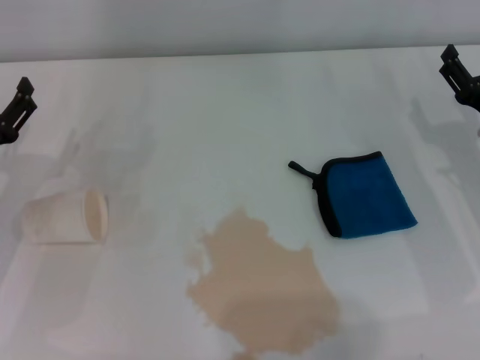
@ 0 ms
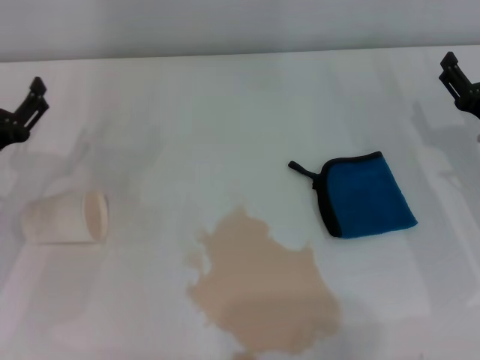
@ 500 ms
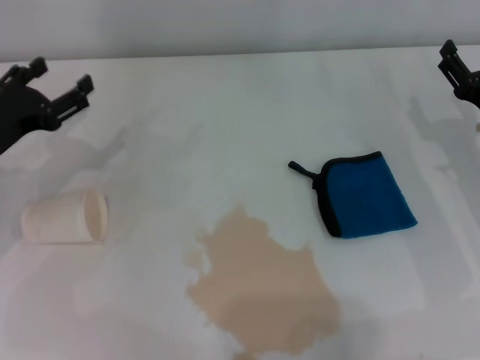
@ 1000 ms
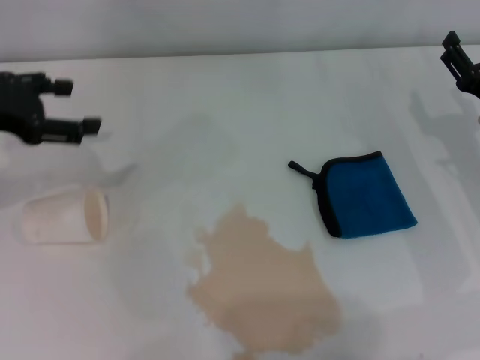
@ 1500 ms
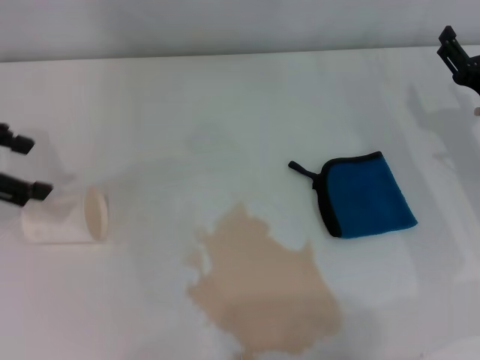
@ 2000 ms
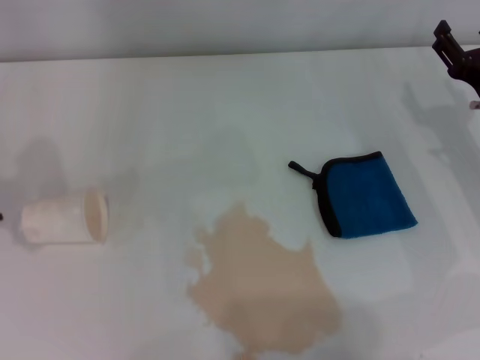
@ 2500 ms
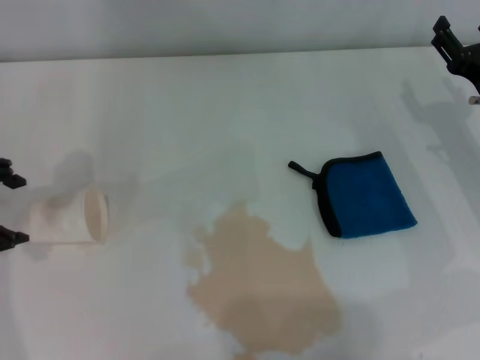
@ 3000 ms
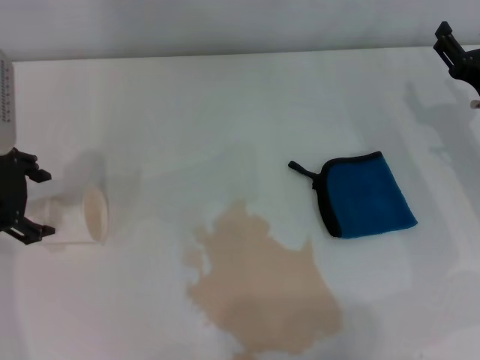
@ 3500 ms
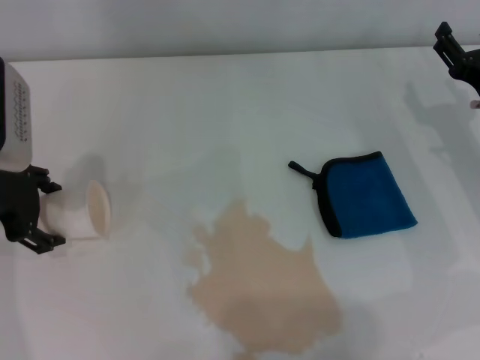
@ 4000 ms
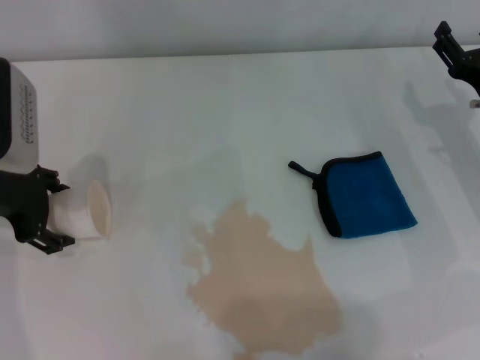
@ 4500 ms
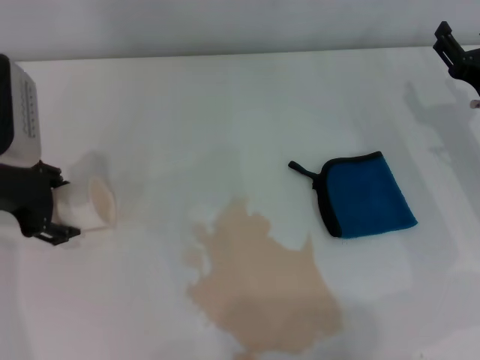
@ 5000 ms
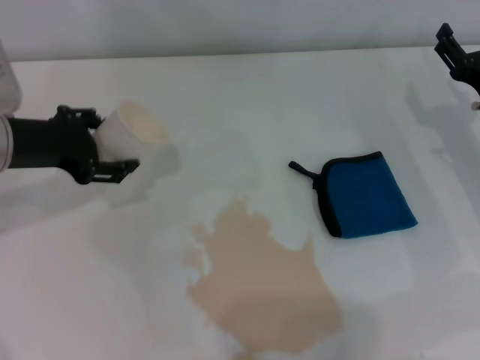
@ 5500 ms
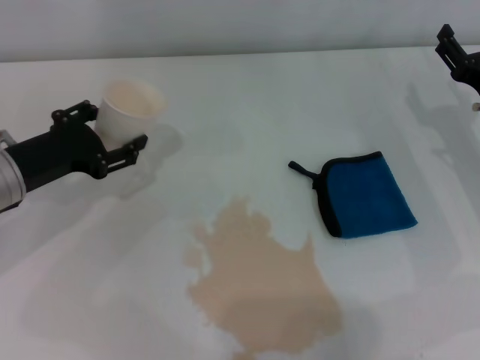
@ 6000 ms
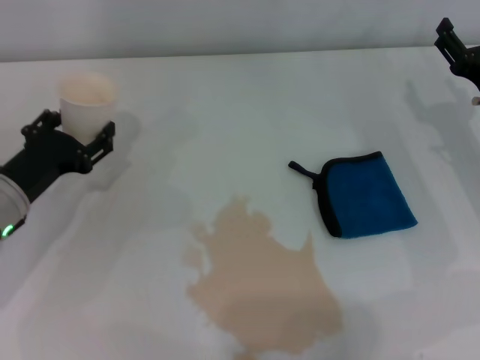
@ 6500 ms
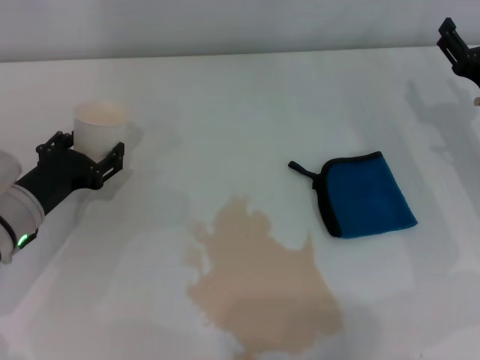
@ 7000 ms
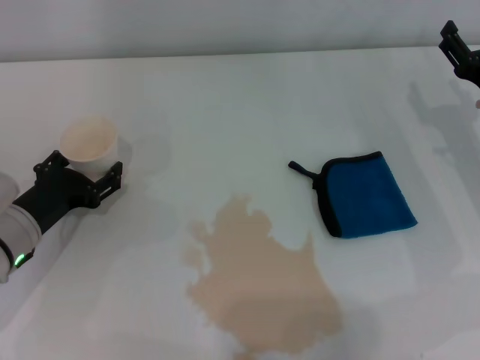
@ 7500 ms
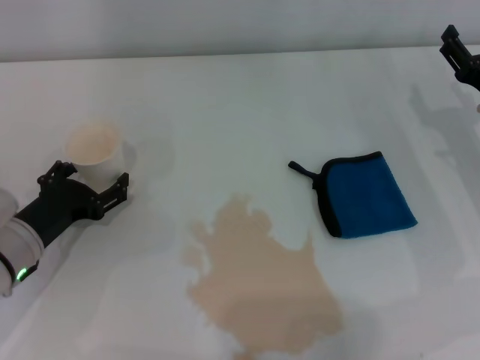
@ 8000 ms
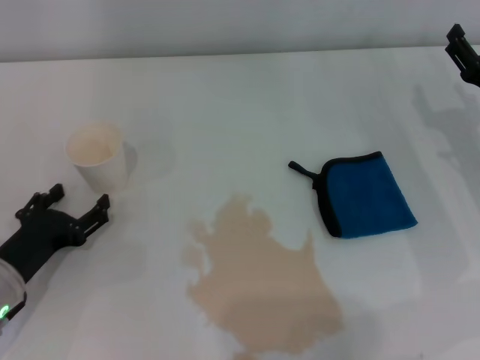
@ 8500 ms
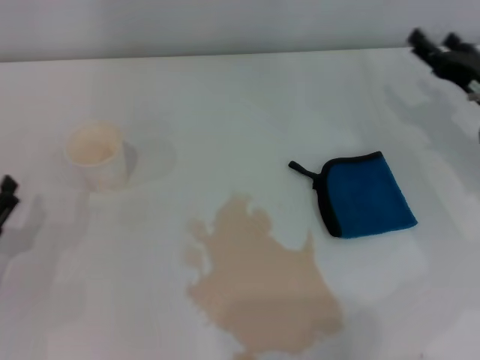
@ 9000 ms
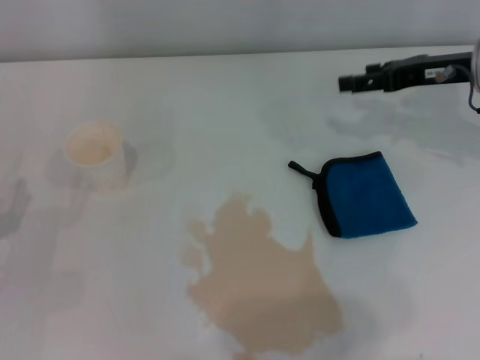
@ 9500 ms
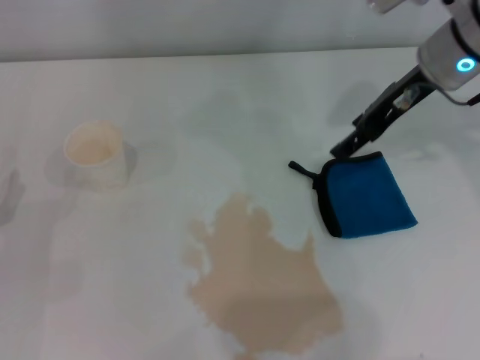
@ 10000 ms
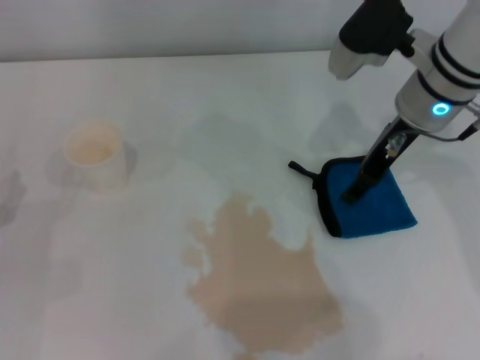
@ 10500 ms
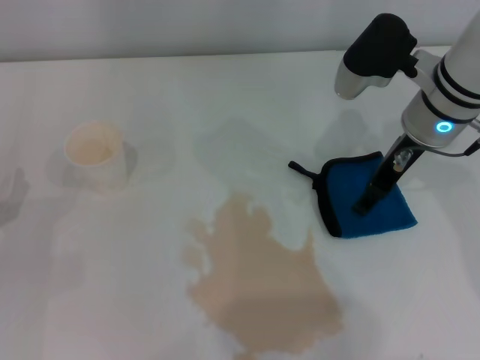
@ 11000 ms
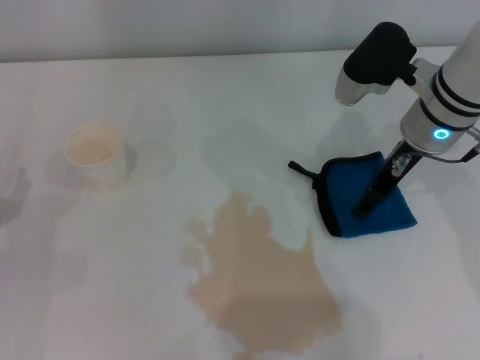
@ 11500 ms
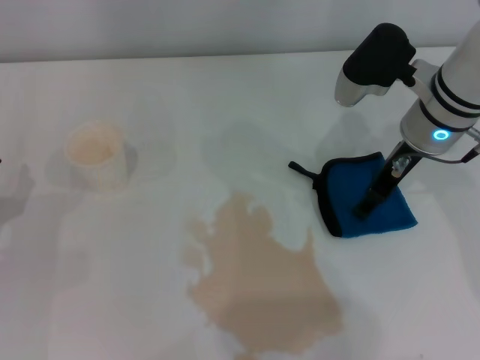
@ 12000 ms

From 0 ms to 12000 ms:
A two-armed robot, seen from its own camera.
Step, from 0 ms to 4500 ms: Grasp the paper cup with the left gripper.
Step, from 5000 ms to 7500 ms: Stand the paper cup upright with the left gripper.
From 0 ms to 2000 ms: The left gripper is displaced upward by about 15 cm.
From 2000 ms to 4000 ms: The left gripper goes some 10 cm downward and to the right.
From 4000 ms to 6000 ms: The left gripper is displaced downward by roughly 5 cm, and closes up.
From 6000 ms to 8000 ms: The left gripper is displaced downward by roughly 10 cm, and opens.
From 8000 ms to 10000 ms: The left gripper shifts about 5 cm to the left; the right gripper heads upward, forward and to the left, covering about 20 cm.
From 10000 ms to 12000 ms: The right gripper shifts about 5 cm downward.

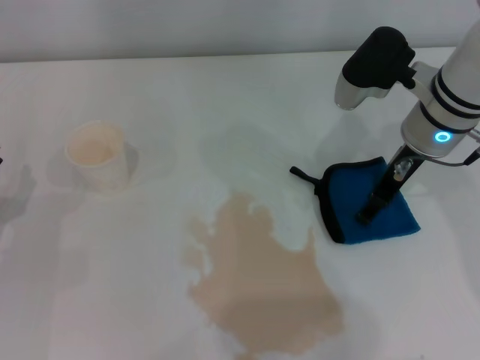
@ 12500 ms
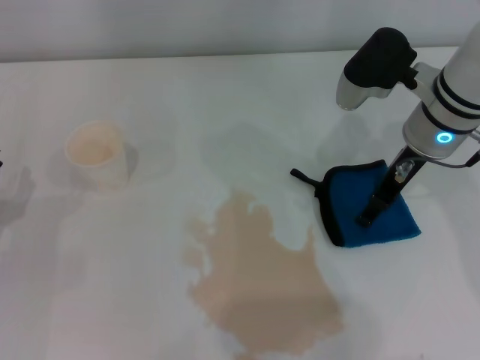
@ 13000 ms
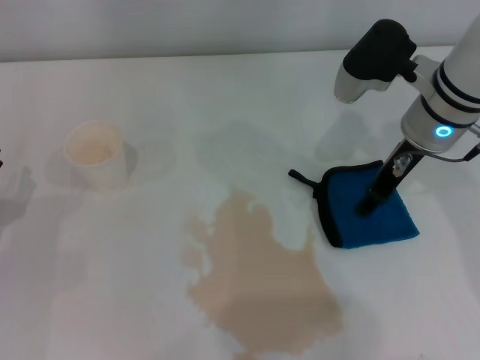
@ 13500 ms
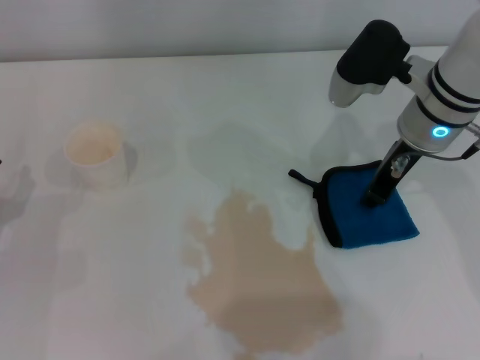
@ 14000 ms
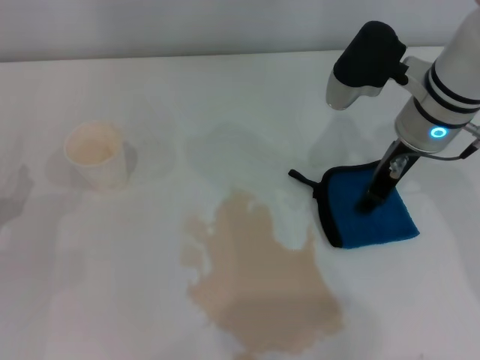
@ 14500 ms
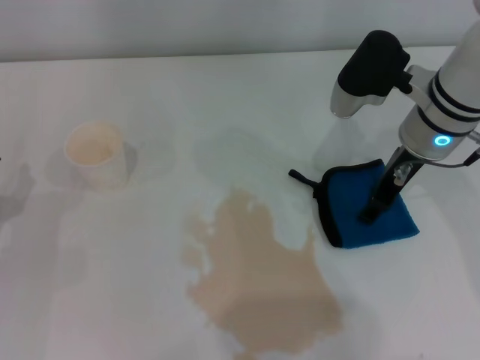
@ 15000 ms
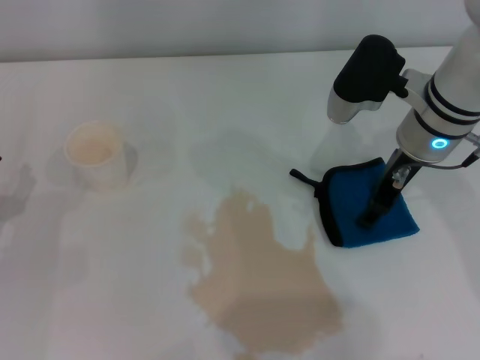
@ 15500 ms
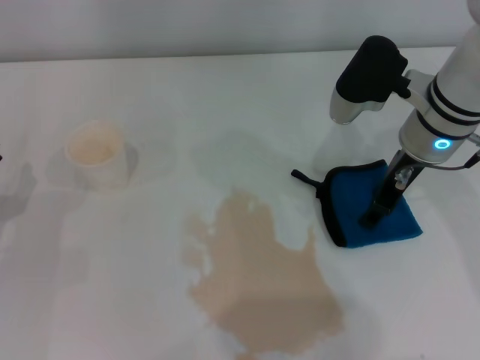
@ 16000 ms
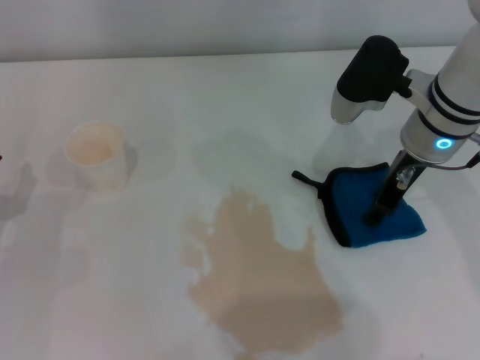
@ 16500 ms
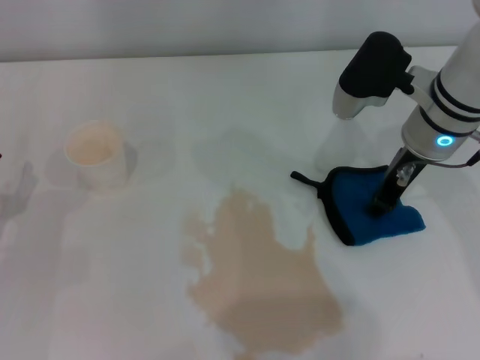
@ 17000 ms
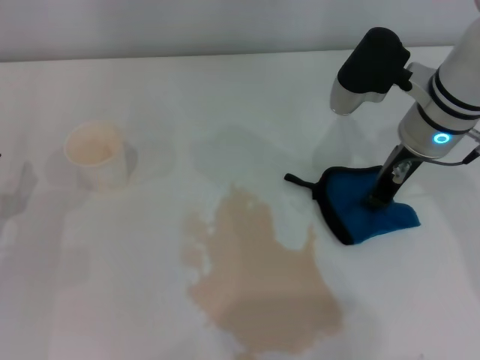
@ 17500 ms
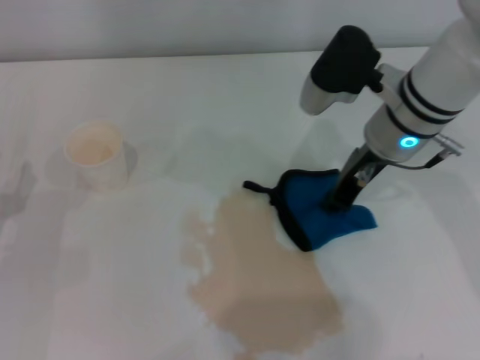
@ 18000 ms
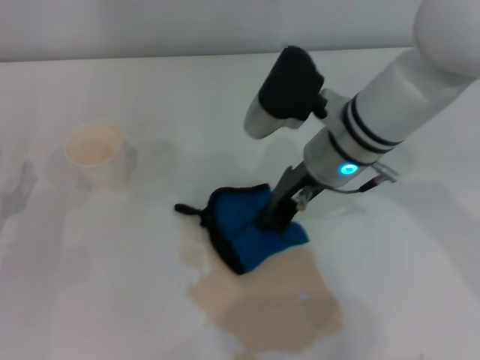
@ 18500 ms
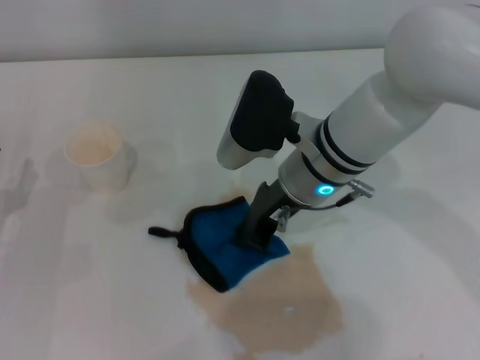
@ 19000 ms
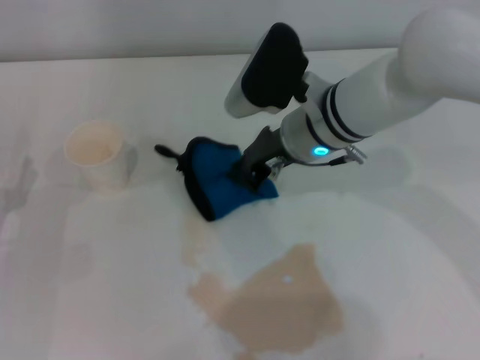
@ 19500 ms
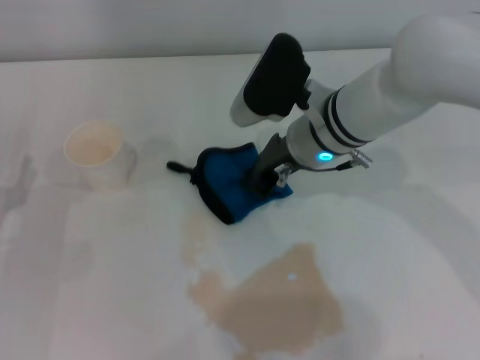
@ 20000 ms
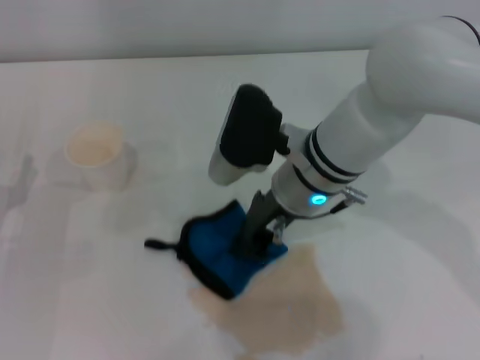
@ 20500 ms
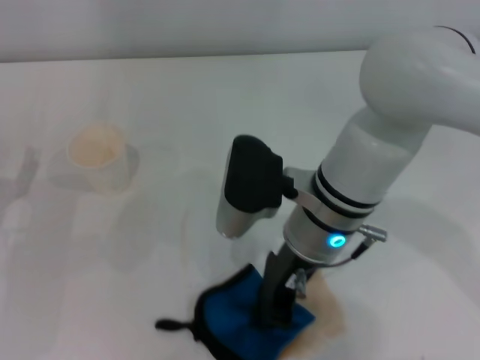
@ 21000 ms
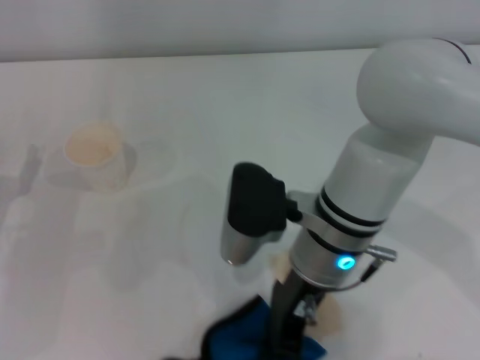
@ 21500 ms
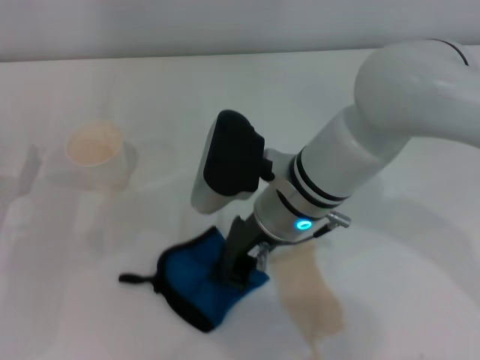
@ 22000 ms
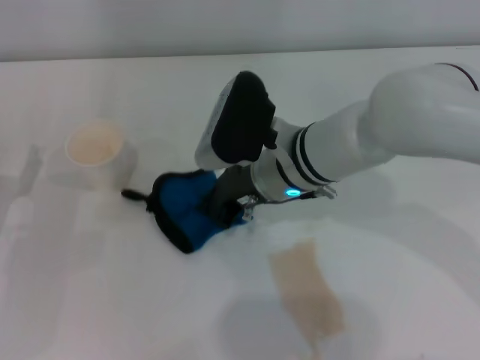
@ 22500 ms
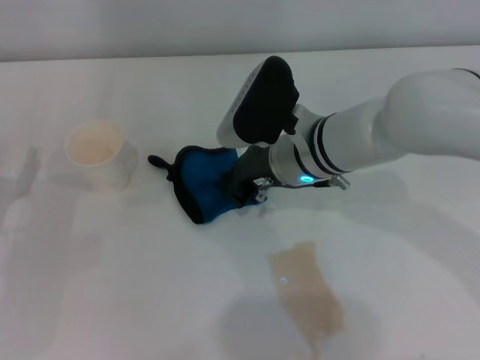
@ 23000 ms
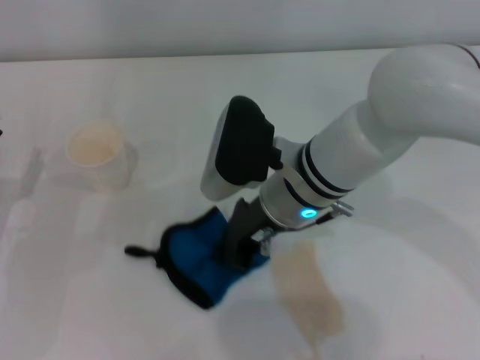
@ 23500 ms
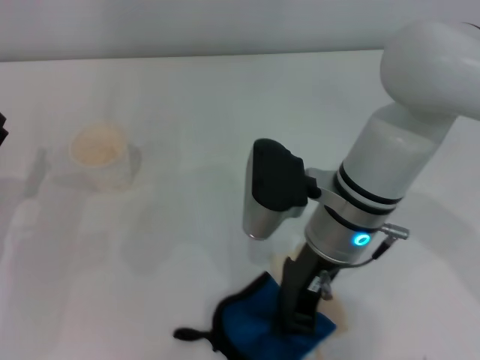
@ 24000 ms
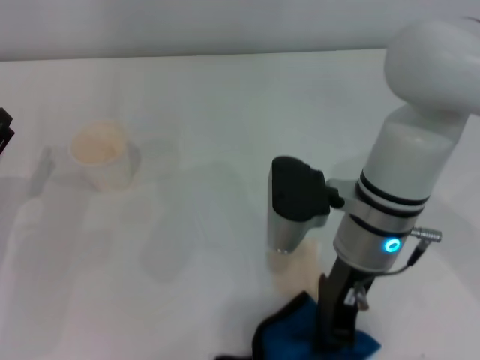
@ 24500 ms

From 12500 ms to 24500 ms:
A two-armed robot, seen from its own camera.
Step, from 12500 ms to 17000 ms: Grasp the rag with the right gripper.
From 12500 ms to 14500 ms: The right gripper closes its fingers.
From 14500 ms to 16500 ms: Both grippers stay put.
From 16500 ms to 18500 ms: The right gripper heads to the left, covering some 10 cm, and closes up.
From 18500 ms to 20500 ms: There are only small adjustments of the grippers.
From 22500 ms to 24500 ms: The right gripper is displaced backward and to the right by about 5 cm.

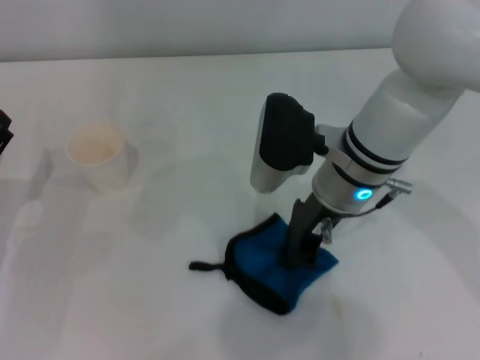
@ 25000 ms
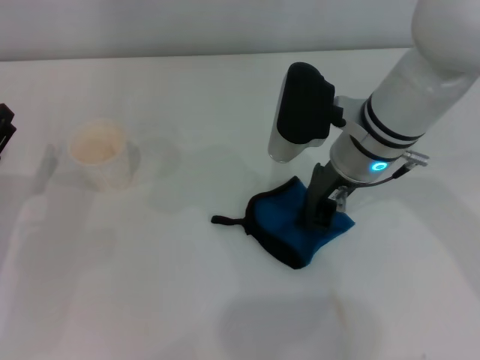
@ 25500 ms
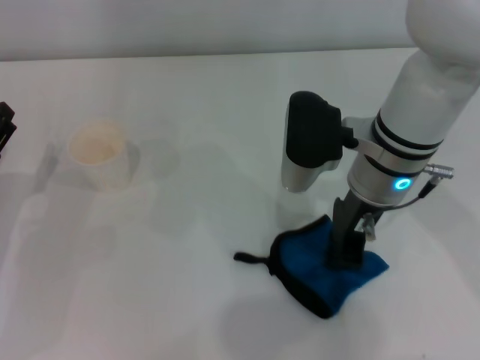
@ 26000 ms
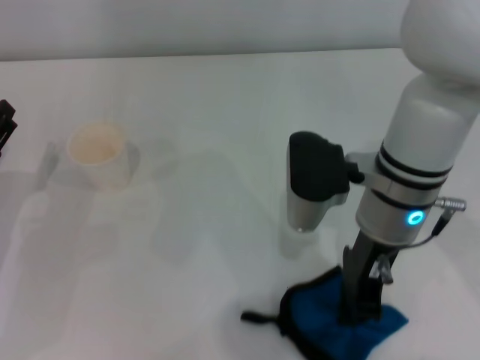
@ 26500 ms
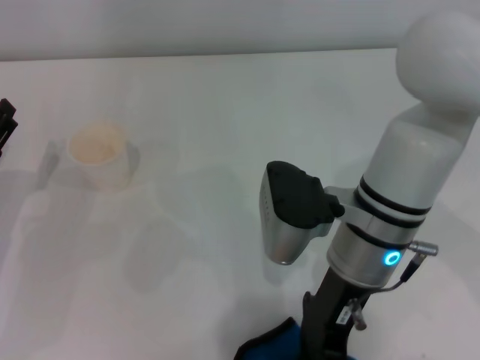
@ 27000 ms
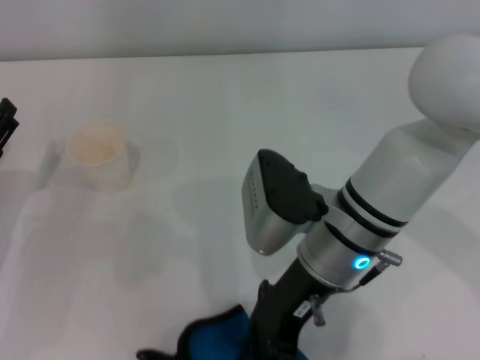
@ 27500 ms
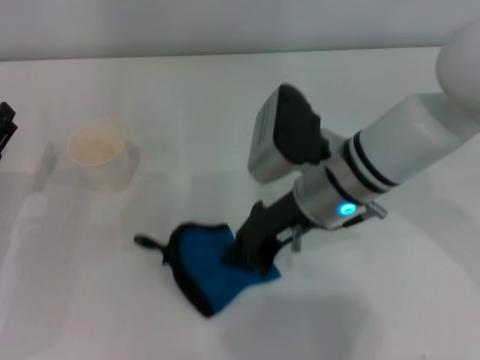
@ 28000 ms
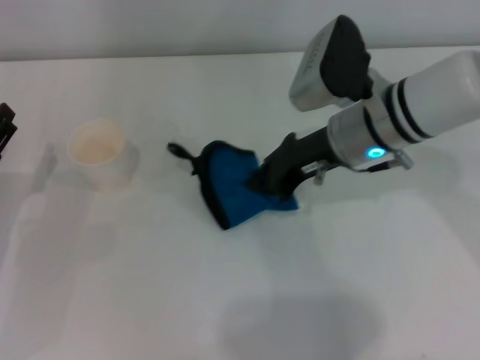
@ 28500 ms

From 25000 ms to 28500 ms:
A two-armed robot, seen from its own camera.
From 25000 ms to 27000 ms: The right gripper moves backward, some 5 cm.
From 27000 ms to 28500 ms: The right gripper moves forward, approximately 10 cm.
